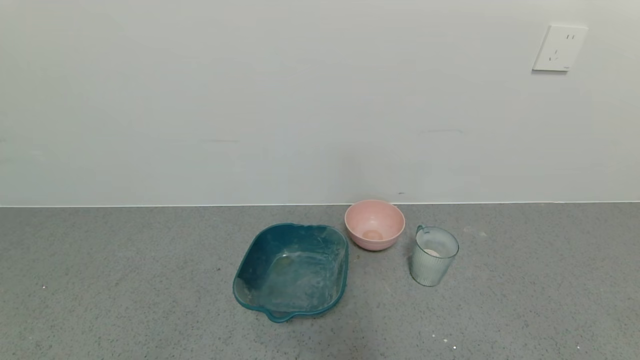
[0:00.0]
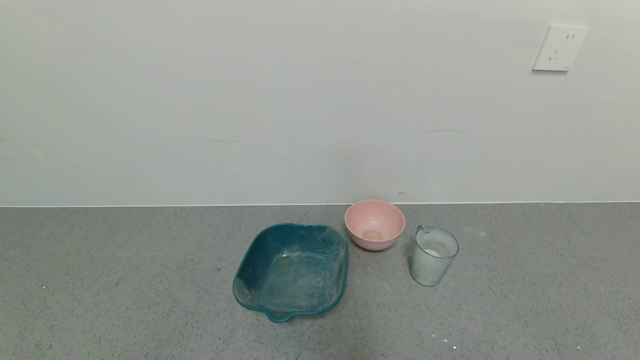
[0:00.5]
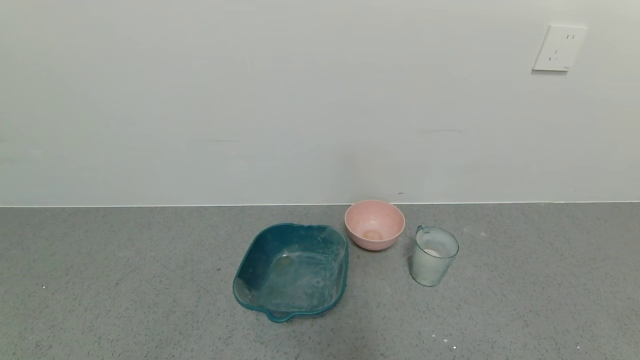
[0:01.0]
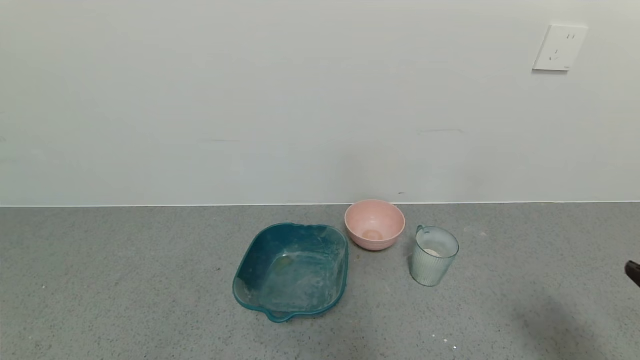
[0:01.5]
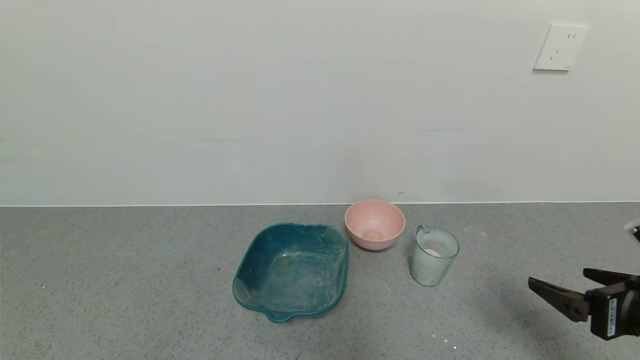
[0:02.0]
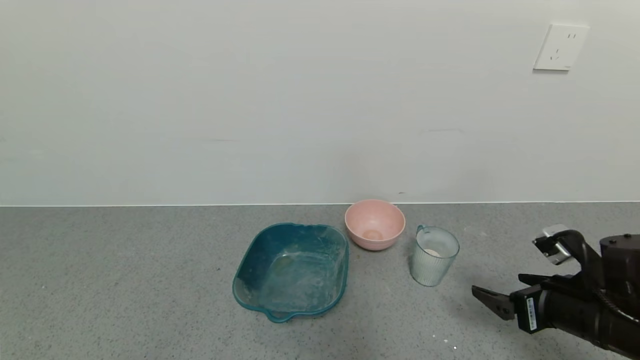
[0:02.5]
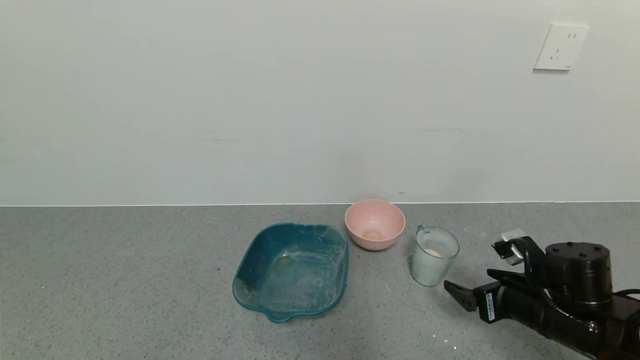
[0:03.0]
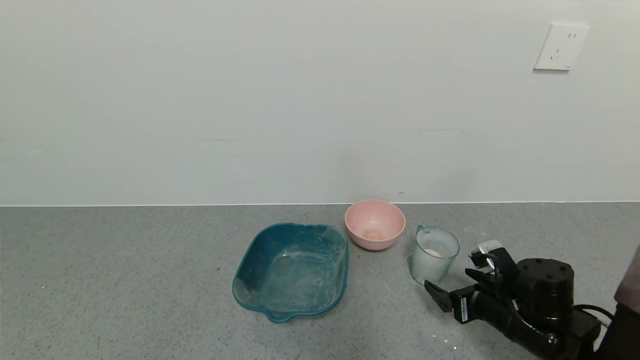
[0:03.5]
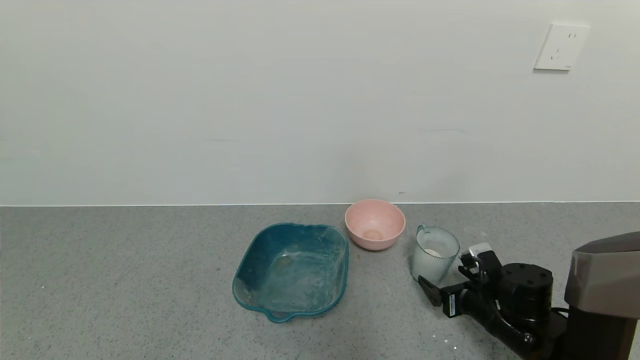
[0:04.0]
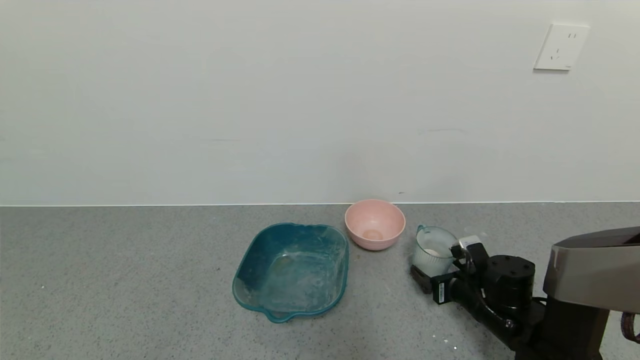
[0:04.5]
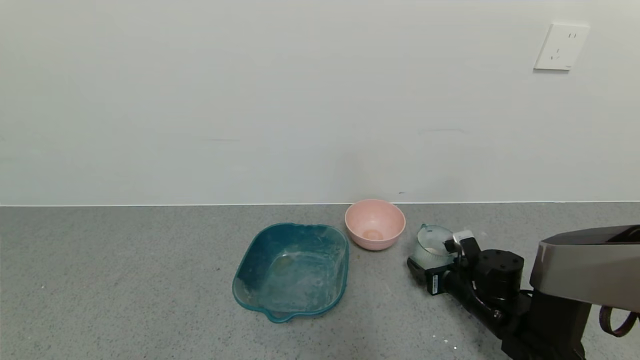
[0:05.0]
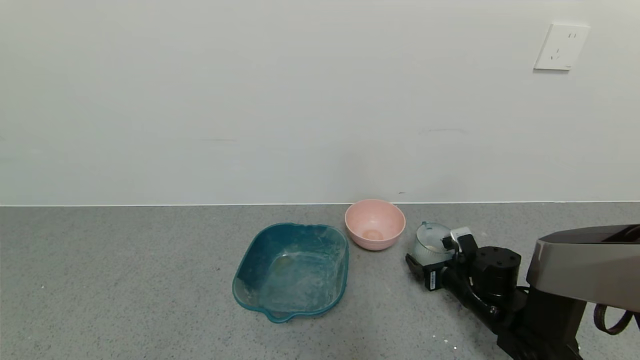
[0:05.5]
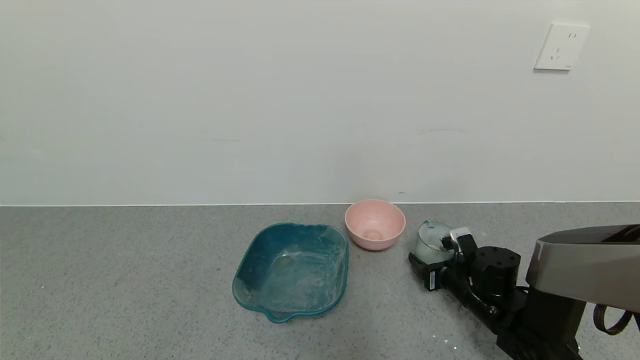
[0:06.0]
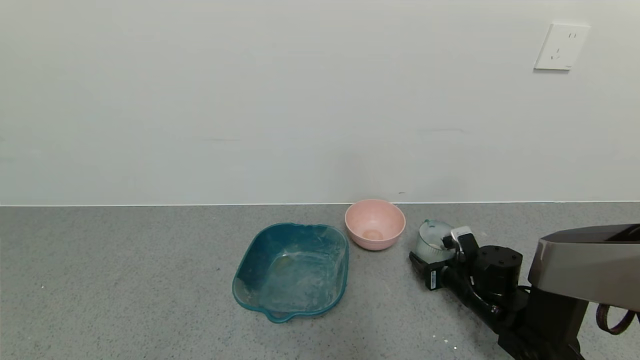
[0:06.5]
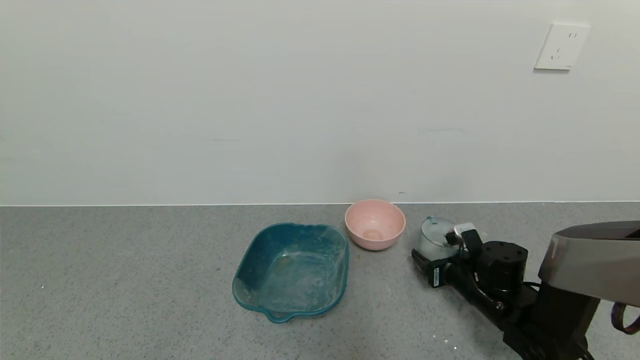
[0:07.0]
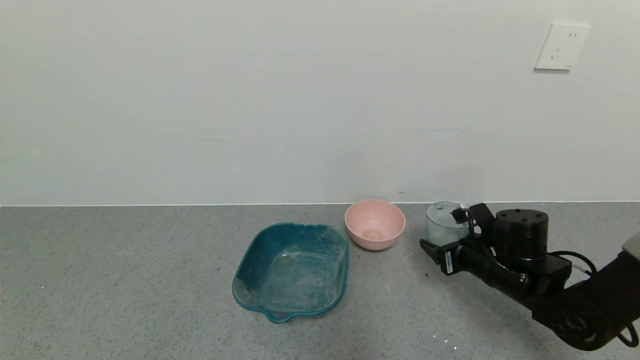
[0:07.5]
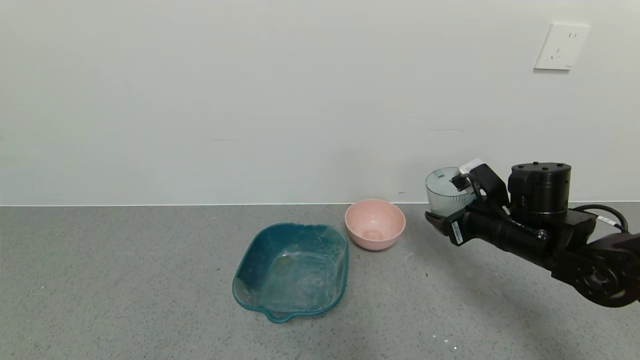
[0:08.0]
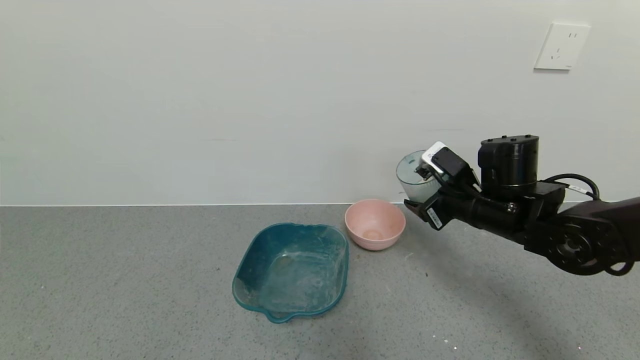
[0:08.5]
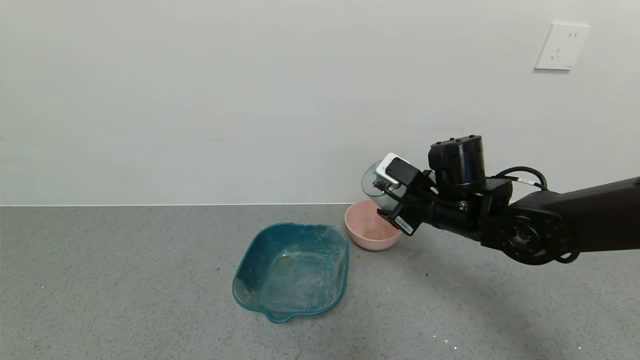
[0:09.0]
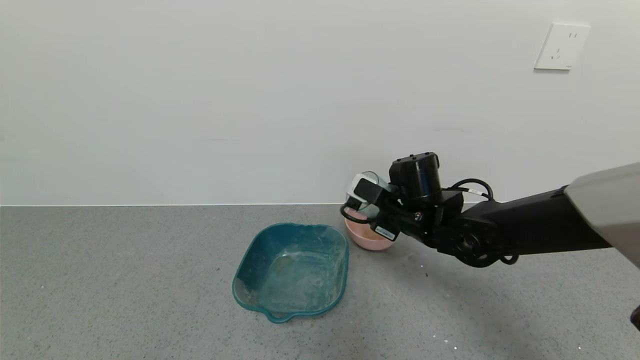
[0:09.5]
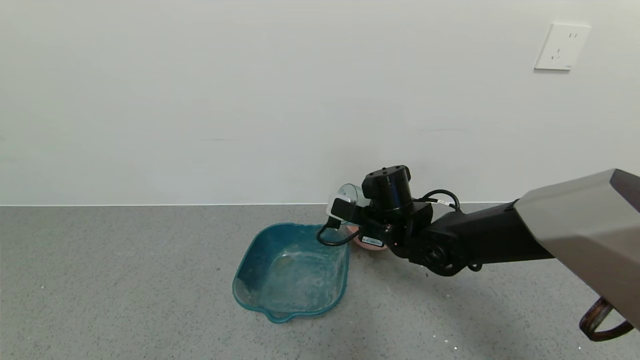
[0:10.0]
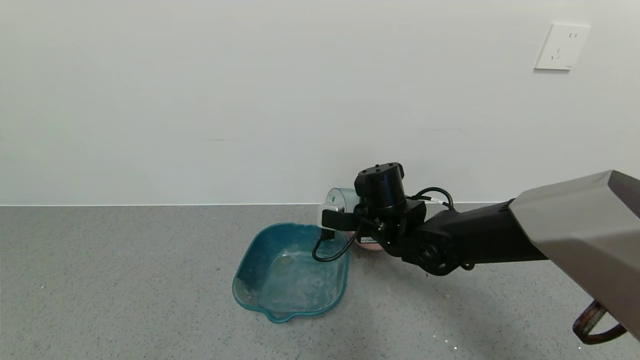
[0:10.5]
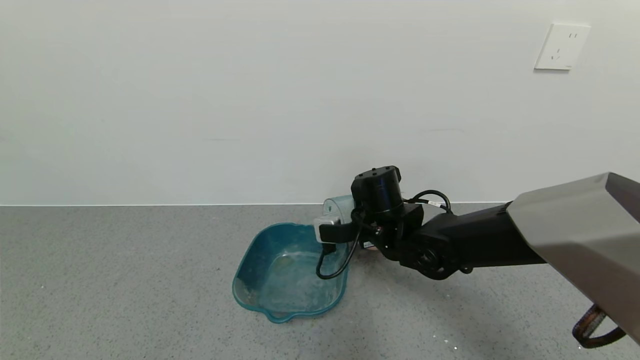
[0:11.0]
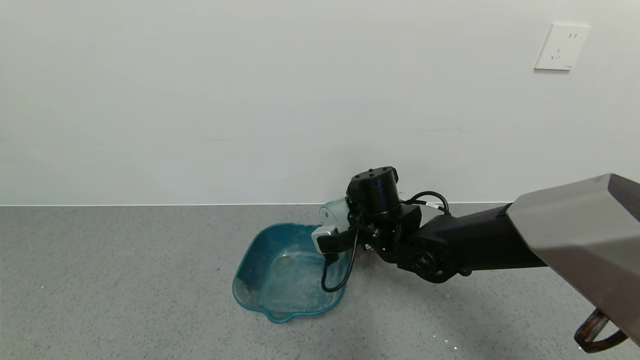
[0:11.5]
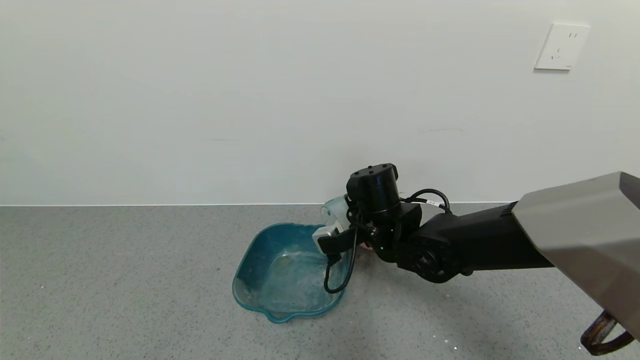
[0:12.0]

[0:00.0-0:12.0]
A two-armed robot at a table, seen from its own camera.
Task of the whole recording: use a gripper to pick up the cup and pour the powder into a bowl or tray.
Step, 0:00.0 to 0:05.5: Grasp the glass of powder with the right gripper.
0:00.0 to 0:02.0: The right gripper travels forward and upward by roughly 20 cm.
0:02.0 to 0:04.0: The right gripper is displaced downward, forward and to the left by roughly 20 cm.
0:04.0 to 0:06.0: The right gripper travels forward by roughly 5 cm, and closes.
0:06.0 to 0:08.0: The right gripper shifts approximately 15 cm upward.
0:08.0 to 0:10.0: The right gripper is displaced to the left by some 15 cm.

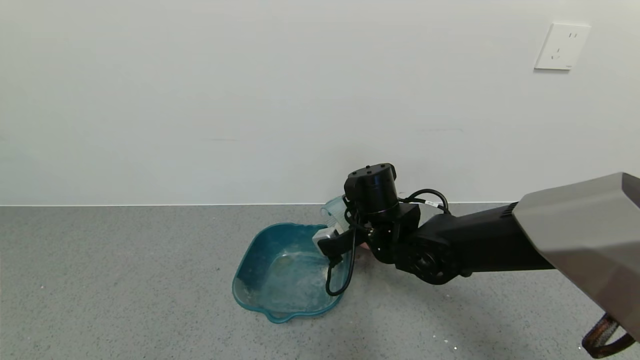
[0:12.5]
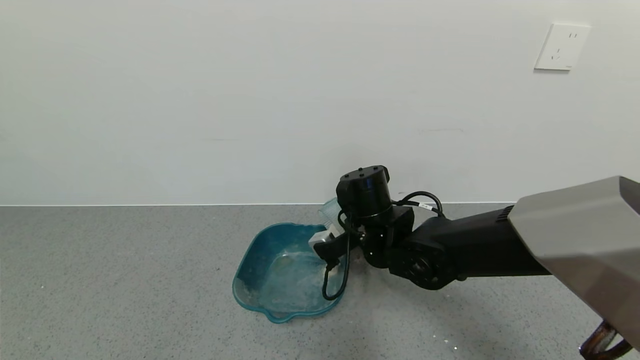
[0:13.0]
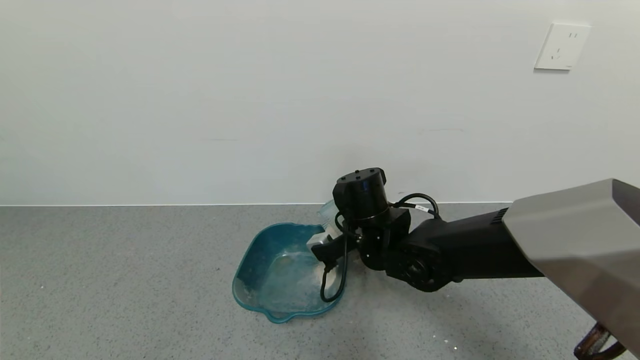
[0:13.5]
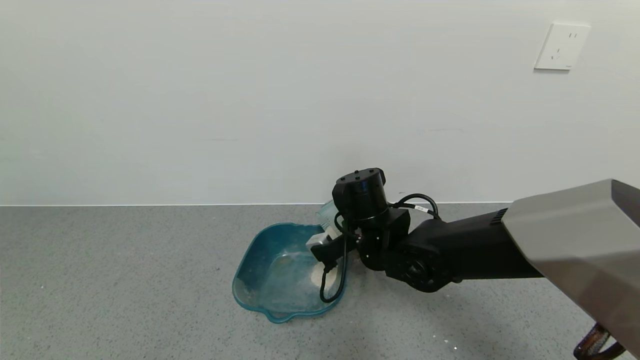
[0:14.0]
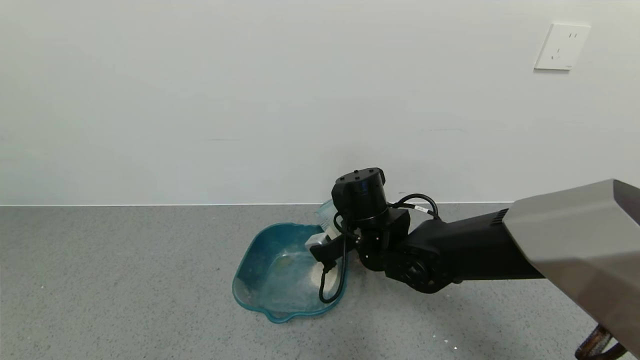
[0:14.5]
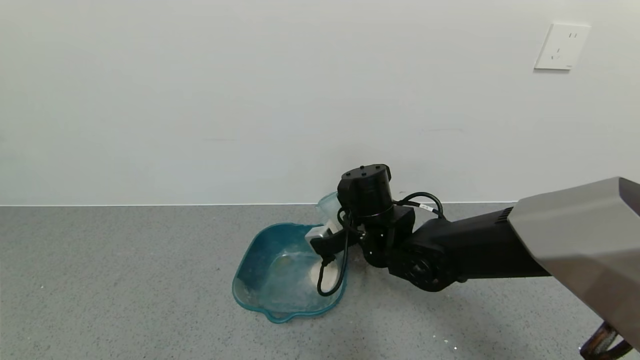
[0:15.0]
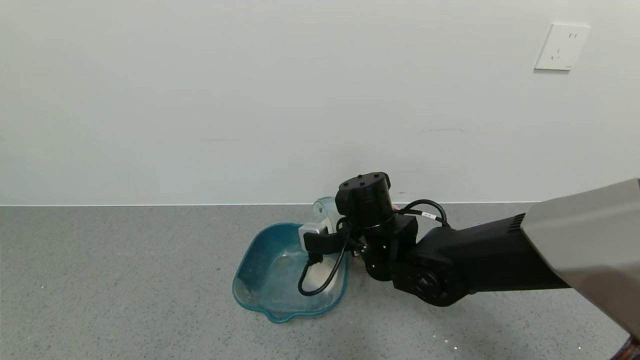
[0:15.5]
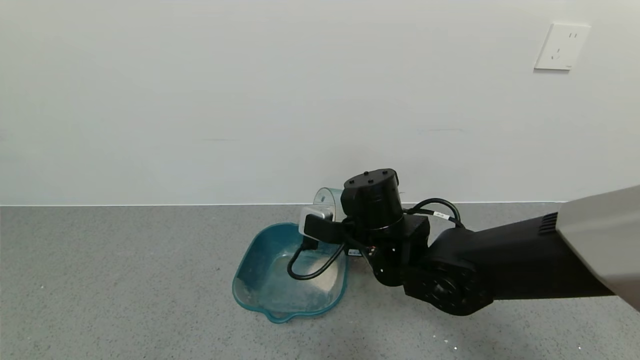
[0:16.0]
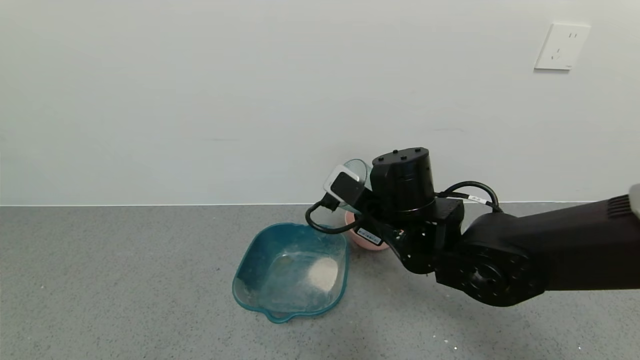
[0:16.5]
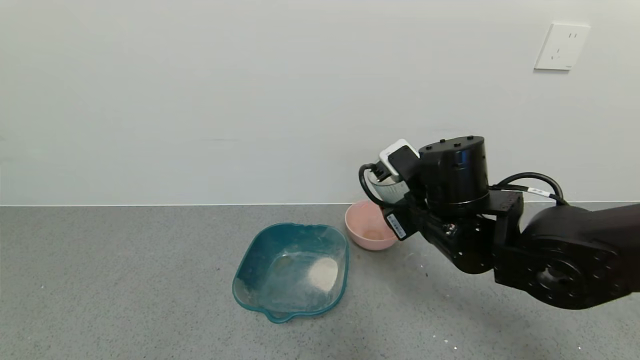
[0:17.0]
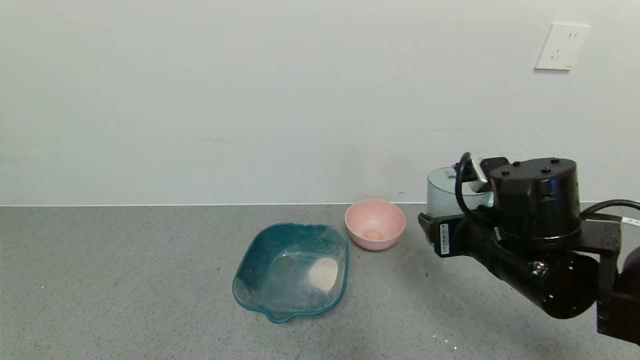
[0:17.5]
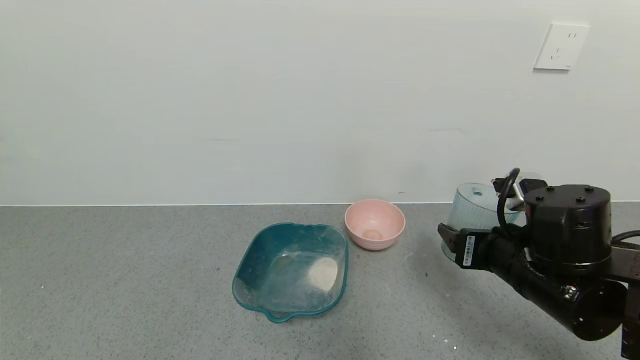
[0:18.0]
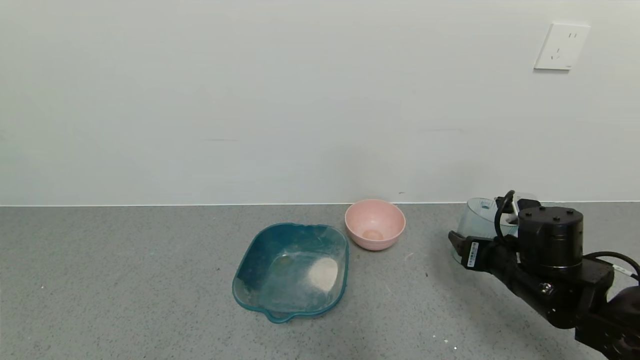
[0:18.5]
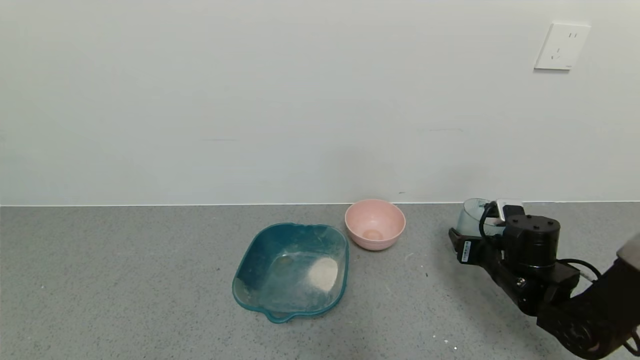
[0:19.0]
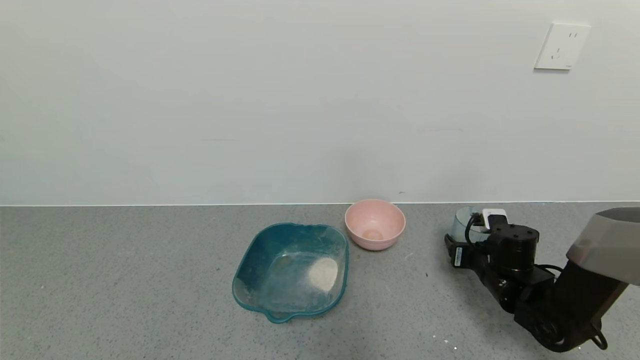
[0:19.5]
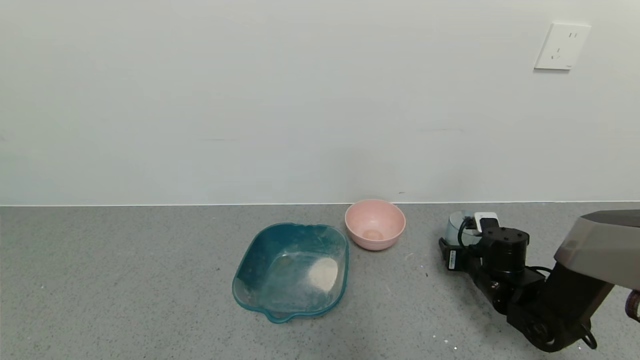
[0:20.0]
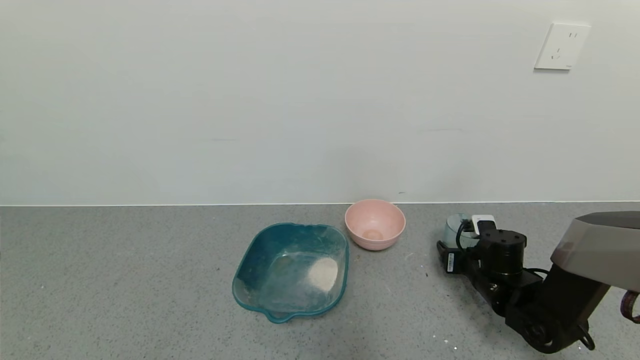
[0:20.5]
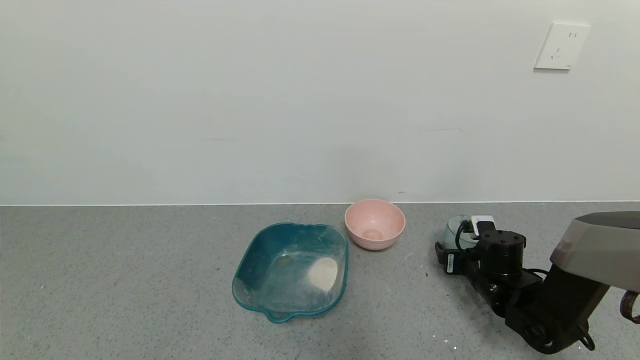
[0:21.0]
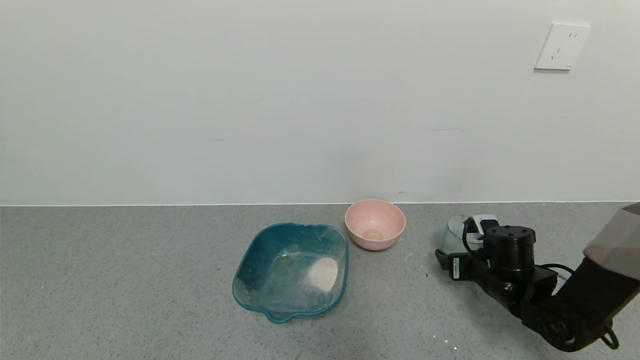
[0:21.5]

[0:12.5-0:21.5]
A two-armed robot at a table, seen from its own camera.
Task of the whole recording: use a gripper to pick up the cup and pour the powder into a bowl or tray.
Step, 0:12.5 to 0:15.0: Pour the powder into the pink bowl with the right gripper.
0:12.5 to 0:14.5: The grippers make only small movements.
0:14.5 to 0:17.0: The right gripper shifts roughly 10 cm to the right, upward and backward.
0:17.0 to 0:19.5: The right gripper goes roughly 20 cm downward and to the right.
0:19.5 to 0:21.5: The right gripper opens up.
